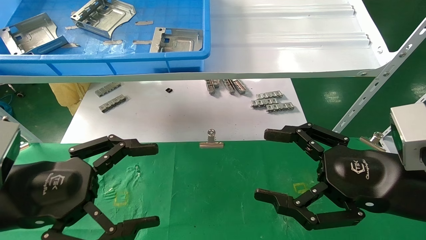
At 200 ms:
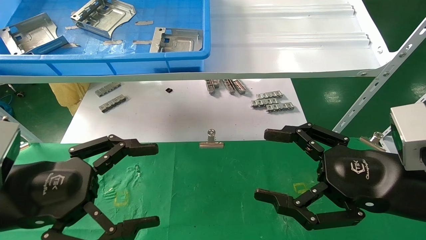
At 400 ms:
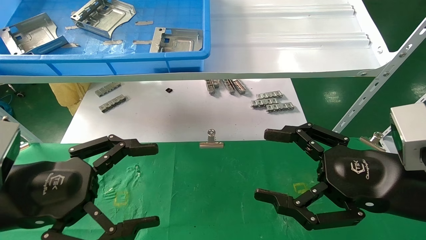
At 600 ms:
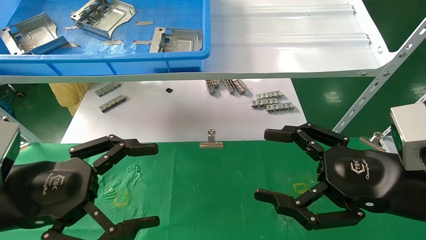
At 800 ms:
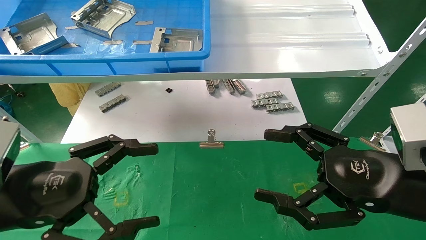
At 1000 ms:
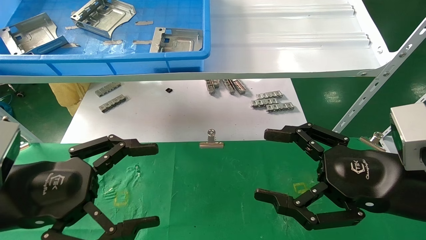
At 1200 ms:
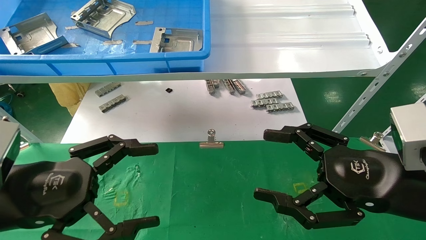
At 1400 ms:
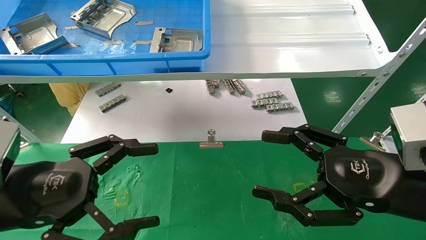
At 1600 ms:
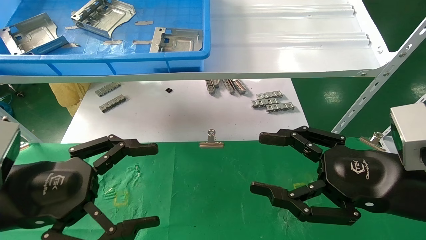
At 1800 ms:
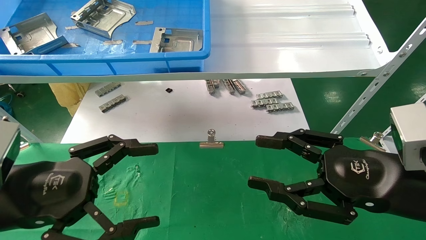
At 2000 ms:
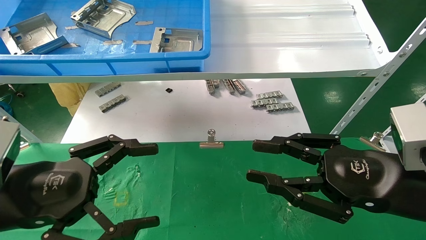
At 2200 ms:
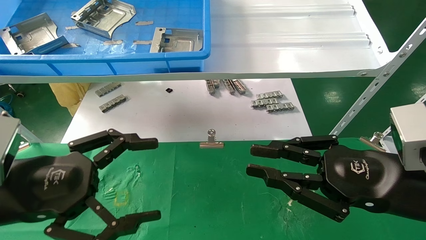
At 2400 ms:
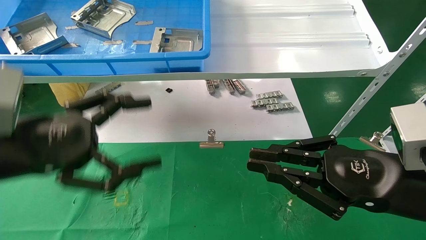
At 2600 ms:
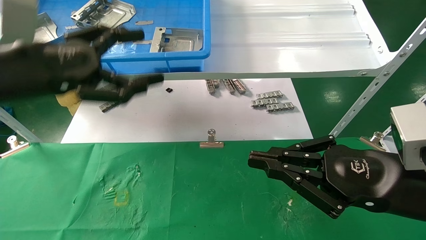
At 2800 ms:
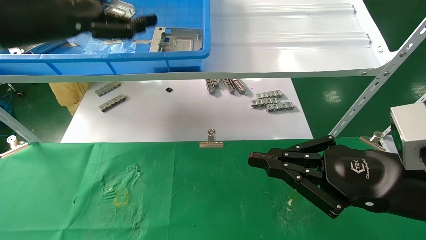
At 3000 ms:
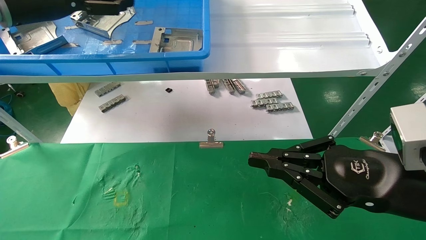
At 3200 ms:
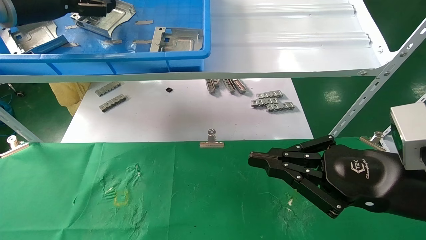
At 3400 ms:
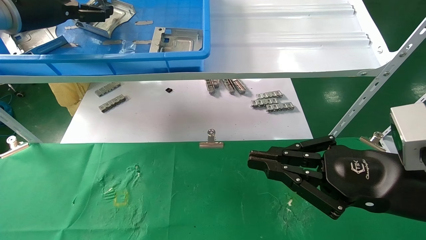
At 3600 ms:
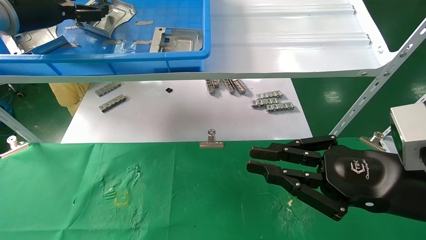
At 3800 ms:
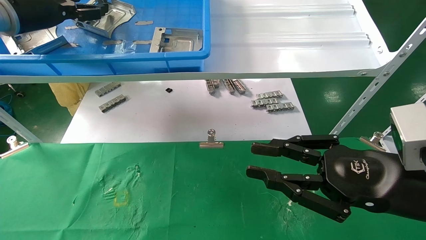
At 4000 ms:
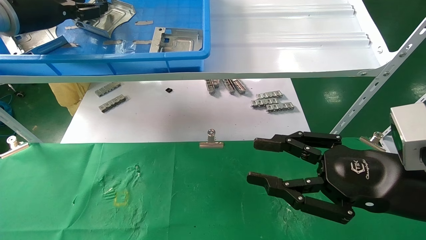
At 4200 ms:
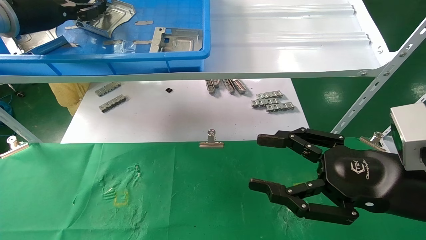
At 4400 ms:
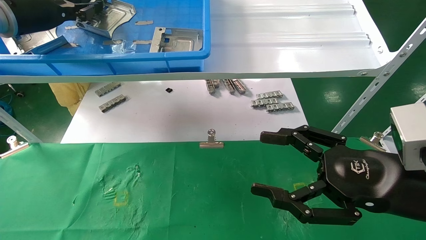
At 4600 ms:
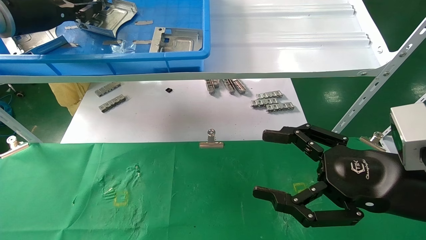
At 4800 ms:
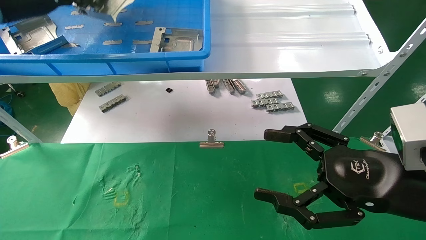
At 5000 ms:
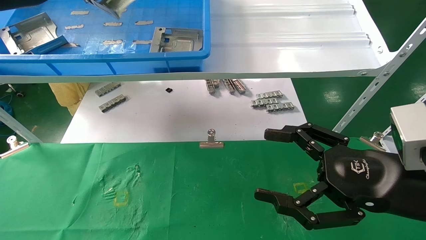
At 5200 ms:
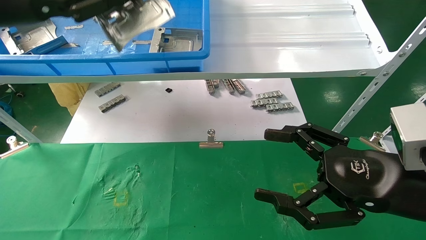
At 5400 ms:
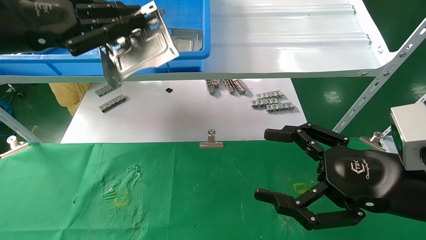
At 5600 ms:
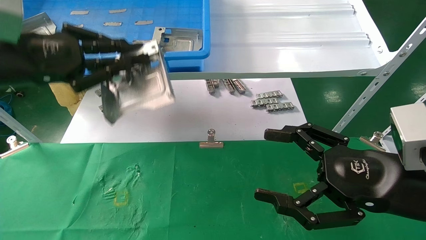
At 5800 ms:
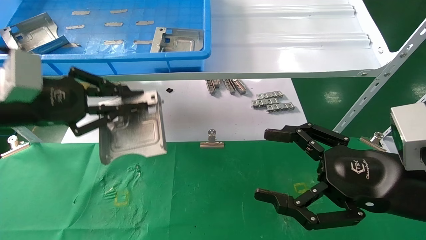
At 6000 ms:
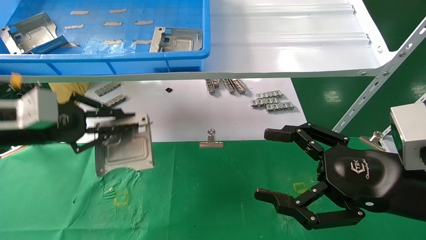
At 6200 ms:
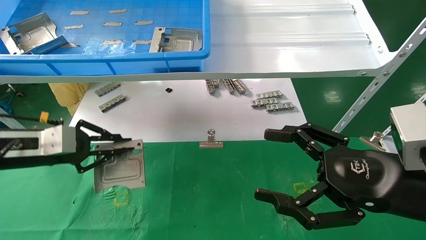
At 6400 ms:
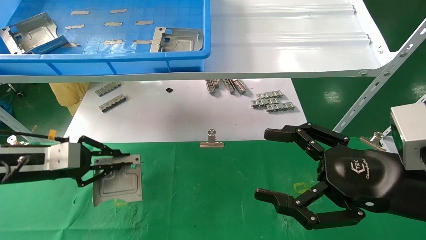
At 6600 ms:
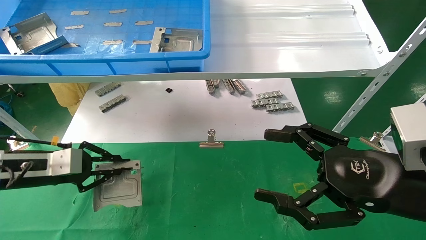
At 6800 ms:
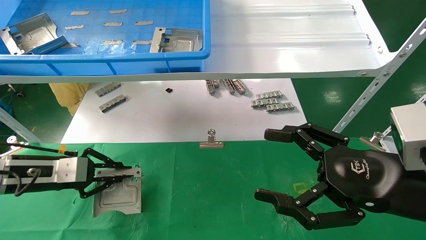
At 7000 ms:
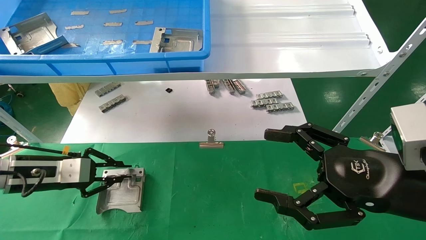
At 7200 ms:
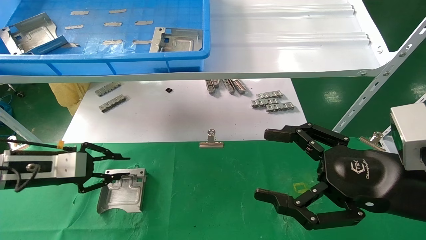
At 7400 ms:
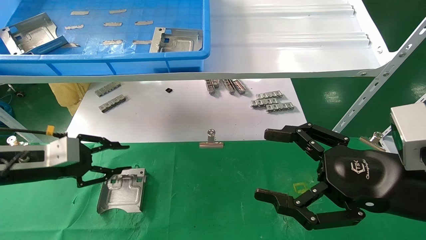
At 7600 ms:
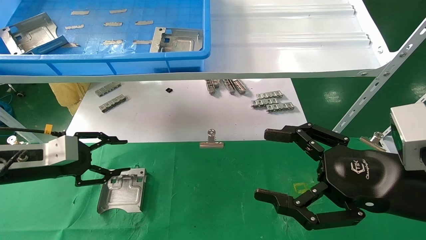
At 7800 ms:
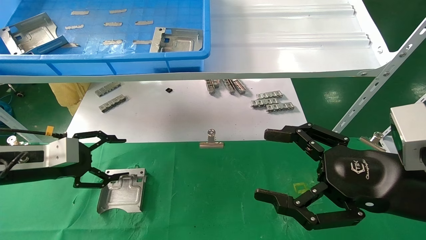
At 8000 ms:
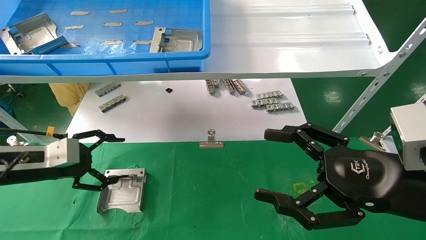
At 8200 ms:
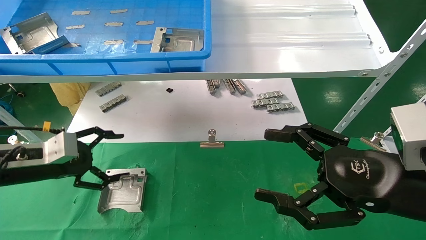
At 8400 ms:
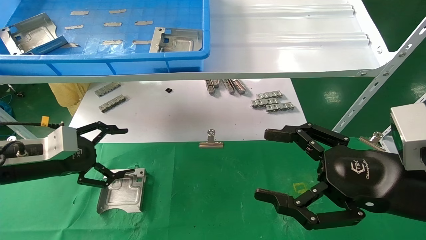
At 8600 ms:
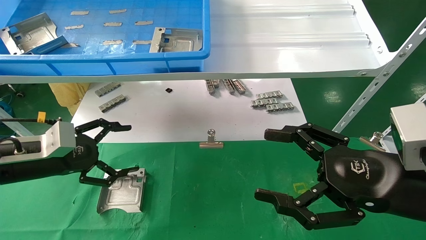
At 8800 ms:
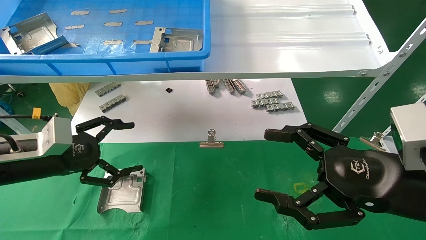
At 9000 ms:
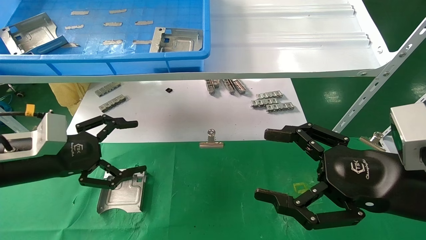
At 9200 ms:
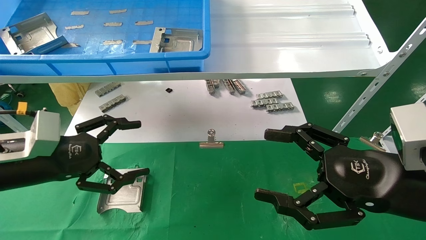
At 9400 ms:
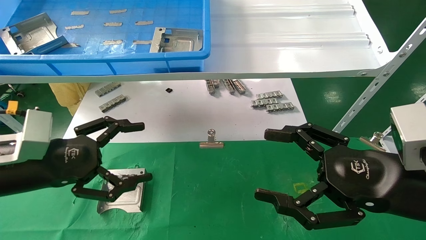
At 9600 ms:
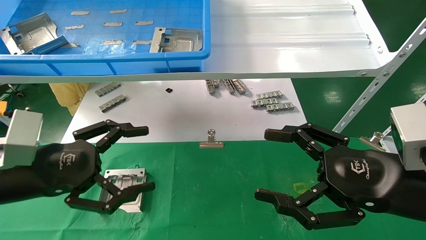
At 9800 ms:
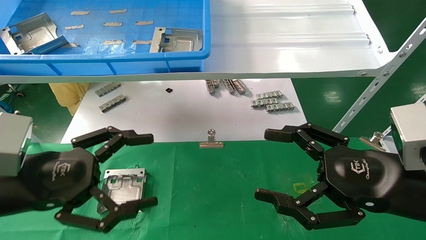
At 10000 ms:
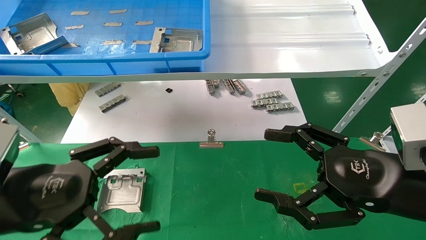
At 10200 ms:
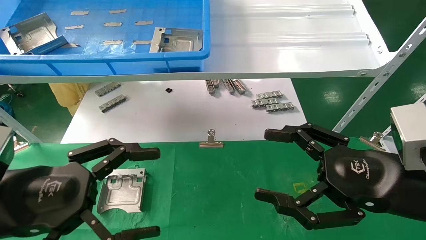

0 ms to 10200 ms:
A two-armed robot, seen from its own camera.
Task of the whole recording: use the mechanical arm to pick up the parts and place them on the table.
Step, 2200 ms to 5000 ms: Pick up the hard drive bracket from the feeding area.
Step, 5200 ms to 7200 ms: Place the hard drive bracket into the box.
0 ms to 1400 ms: Both grippers stay put.
1400 ms to 3000 ms: The right gripper closes its fingers. The left gripper goes about 30 cm upward and forward.
3000 ms to 4400 ms: The right gripper opens up, while the left gripper ends up approximately 5 cm from where it was, and closes.
4400 ms to 5800 ms: The left gripper is displaced downward and backward by roughly 15 cm.
5800 ms to 7200 ms: The left gripper is displaced downward by roughly 15 cm.
7200 ms to 8800 ms: The left gripper changes place by some 5 cm, and opens.
8800 ms to 10200 ms: The left gripper moves backward and to the right, approximately 15 cm.

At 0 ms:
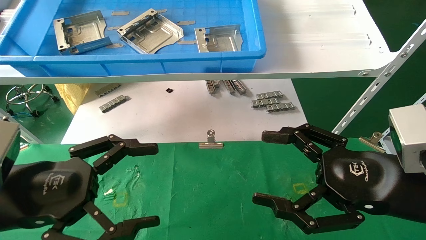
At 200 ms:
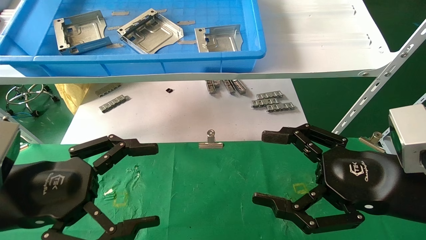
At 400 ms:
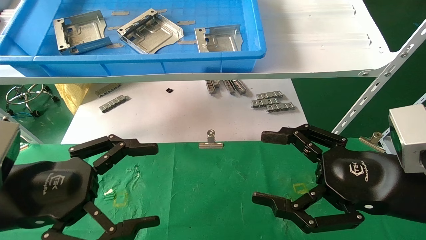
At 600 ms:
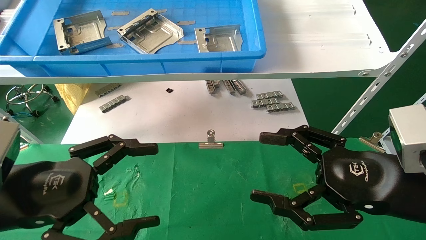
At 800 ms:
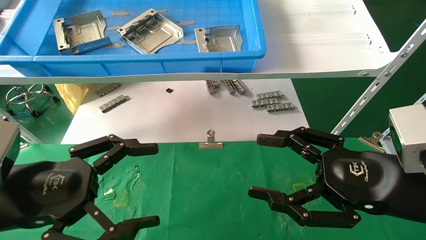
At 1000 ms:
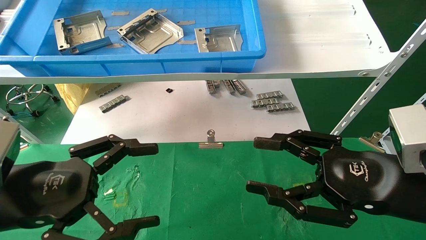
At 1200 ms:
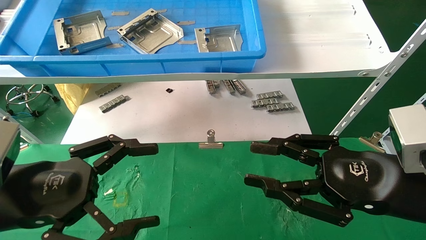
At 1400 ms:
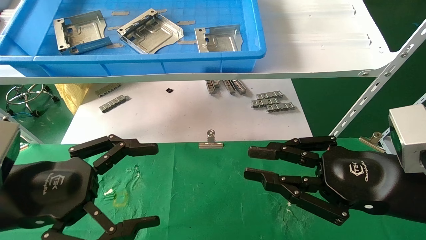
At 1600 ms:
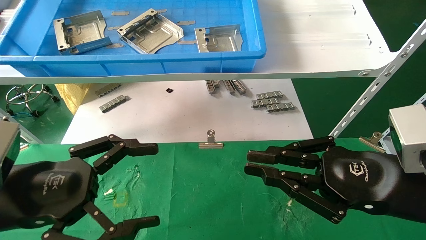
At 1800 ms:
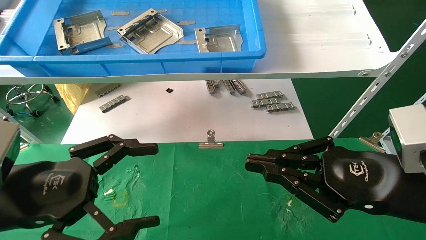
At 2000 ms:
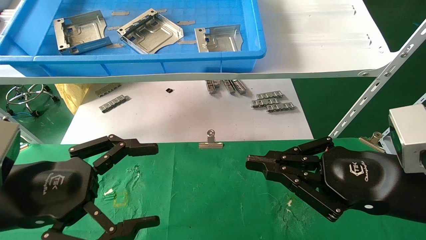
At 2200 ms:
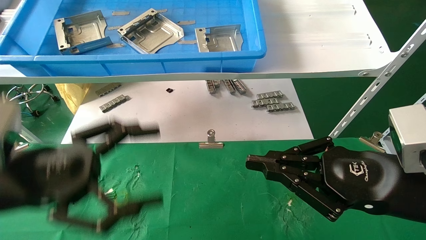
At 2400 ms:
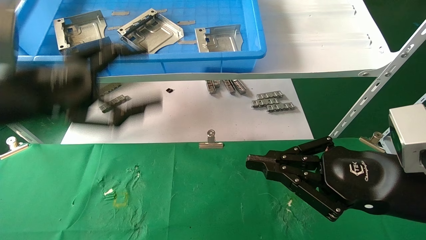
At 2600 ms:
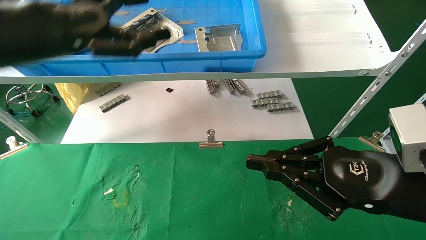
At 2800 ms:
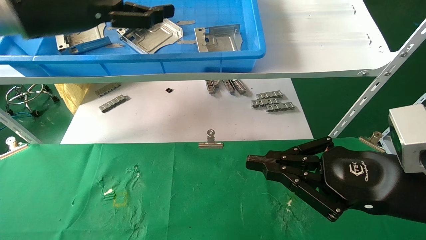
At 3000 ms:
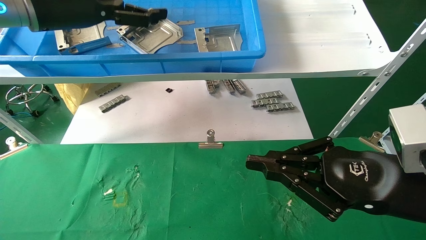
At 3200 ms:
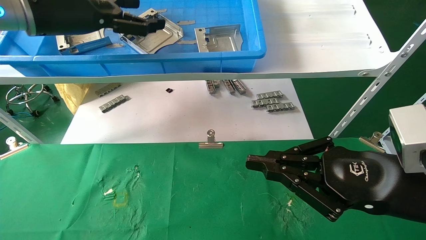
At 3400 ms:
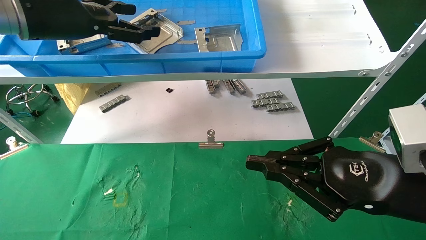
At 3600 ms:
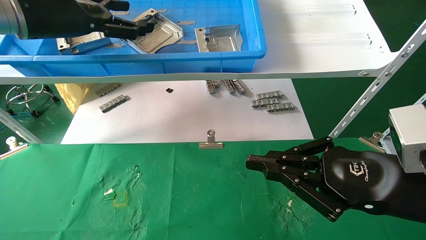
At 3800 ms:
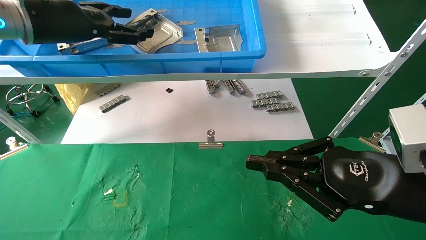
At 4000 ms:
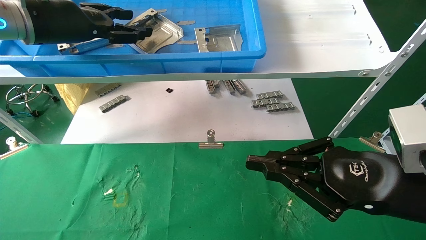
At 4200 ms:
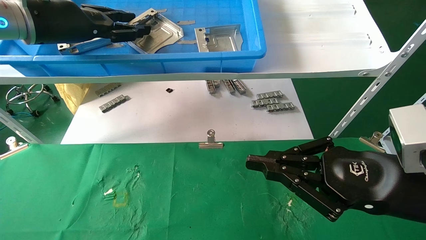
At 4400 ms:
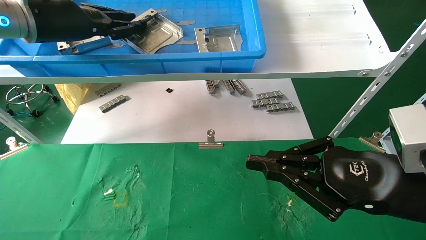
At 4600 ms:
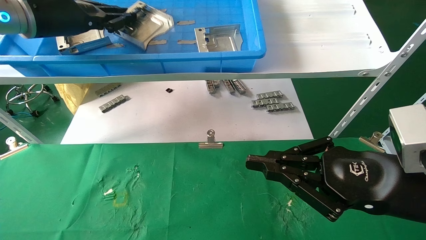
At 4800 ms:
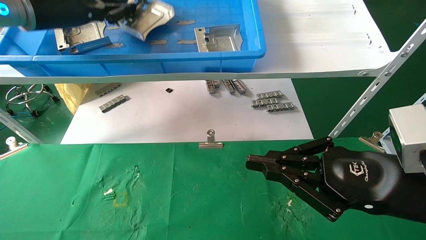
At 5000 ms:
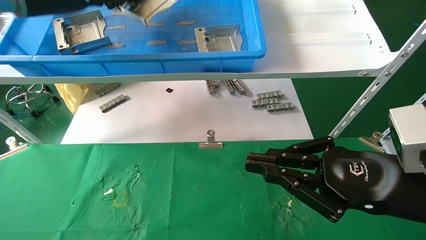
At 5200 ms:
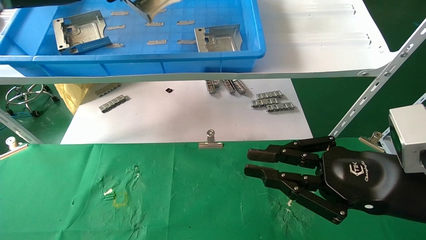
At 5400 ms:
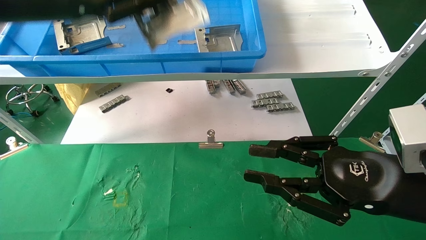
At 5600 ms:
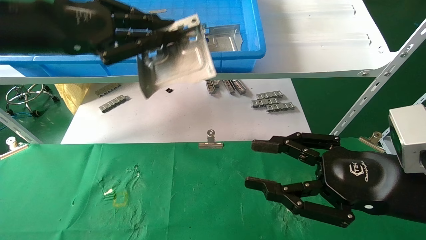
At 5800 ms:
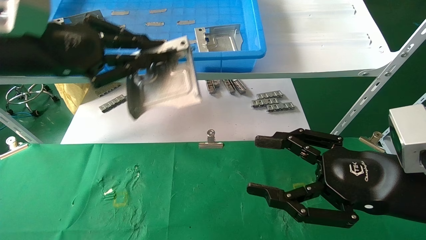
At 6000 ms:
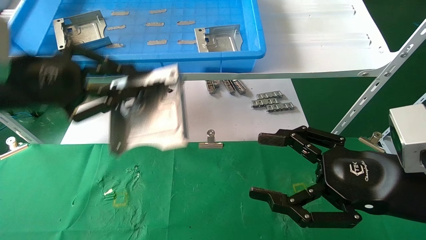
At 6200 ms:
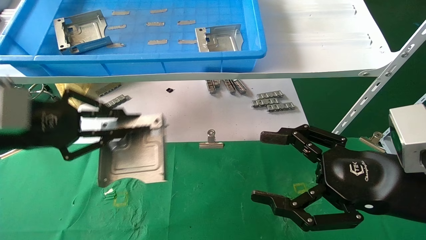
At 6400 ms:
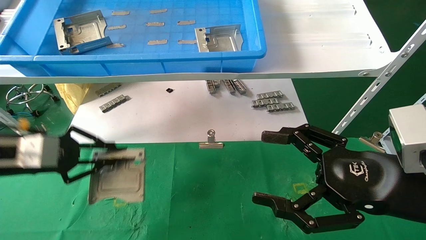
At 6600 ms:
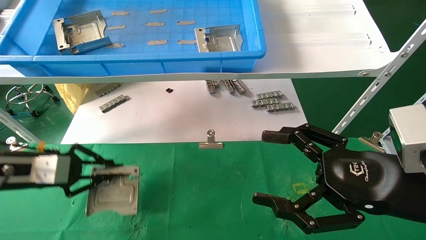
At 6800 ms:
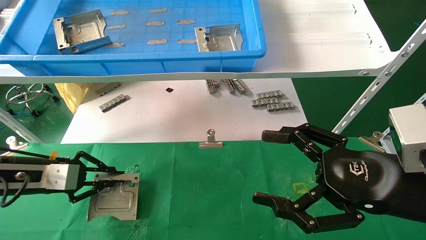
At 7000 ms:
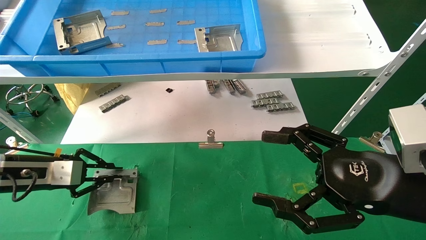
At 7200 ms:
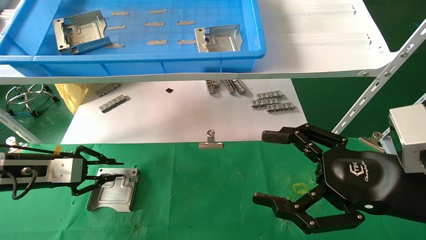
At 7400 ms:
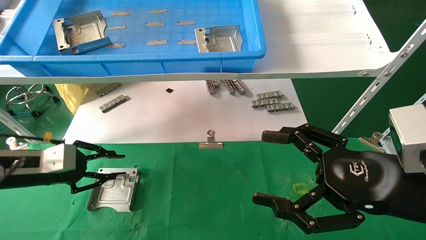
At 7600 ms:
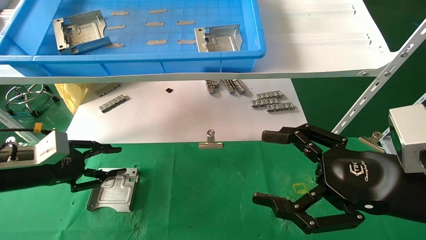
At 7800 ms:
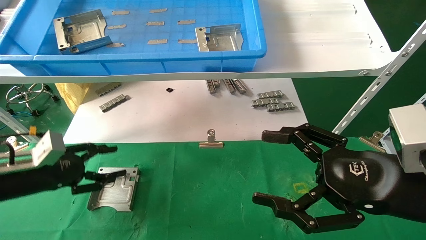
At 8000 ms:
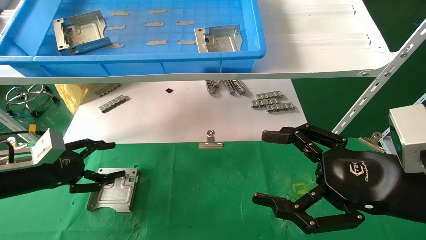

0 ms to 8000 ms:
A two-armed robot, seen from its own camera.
Task of the whole recording: use the mechanical arm to pick up the parts and place them on the table.
Step, 1800 ms to 4800 ms: Pick up the hard drive bracket from the feeding area.
Step, 5000 ms to 8000 ms: Place the hard drive bracket into the box.
0 ms to 1600 ms: The right gripper closes.
1600 ms to 3200 ms: The left gripper goes approximately 30 cm upward and forward.
3200 ms to 4800 ms: The left gripper closes its fingers.
4800 ms to 6400 ms: The right gripper opens up. The left gripper is displaced downward by roughly 20 cm.
6400 ms to 8000 ms: The left gripper goes roughly 10 cm downward, and opens up.
